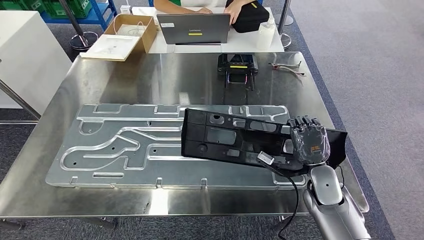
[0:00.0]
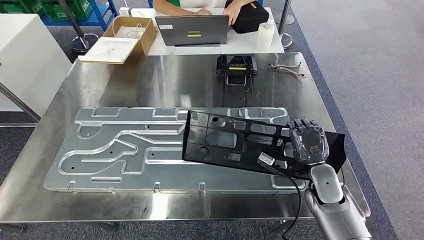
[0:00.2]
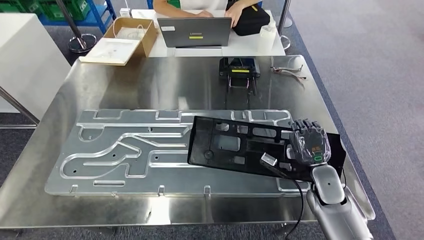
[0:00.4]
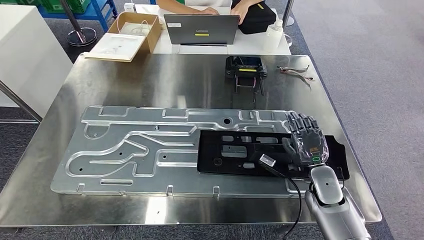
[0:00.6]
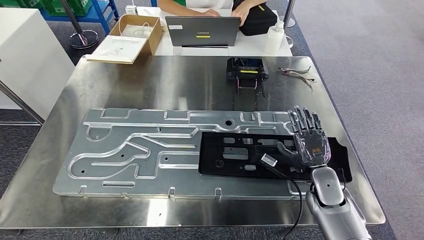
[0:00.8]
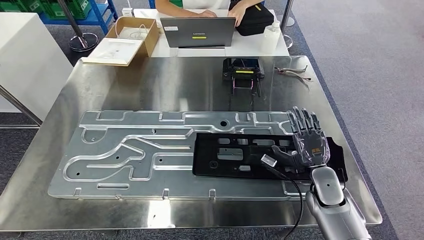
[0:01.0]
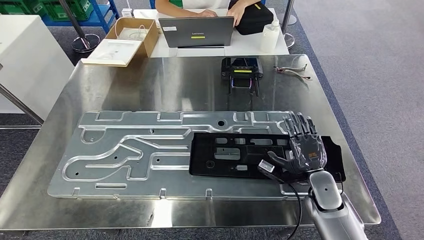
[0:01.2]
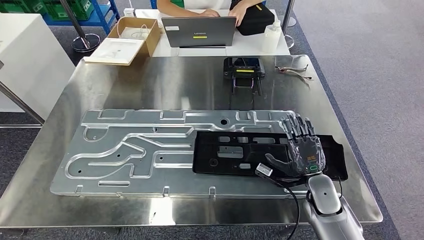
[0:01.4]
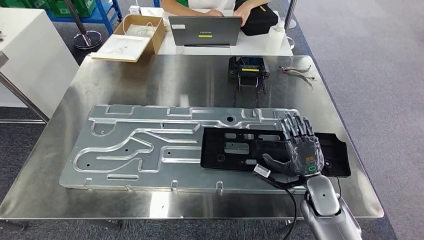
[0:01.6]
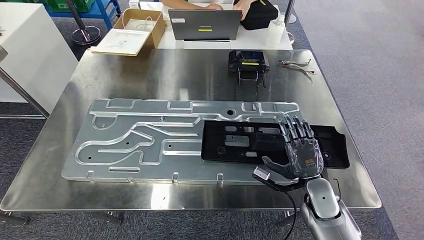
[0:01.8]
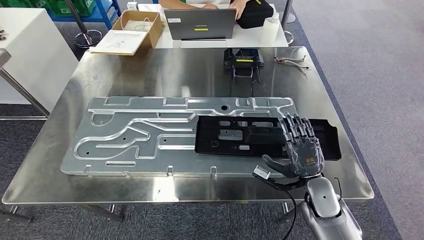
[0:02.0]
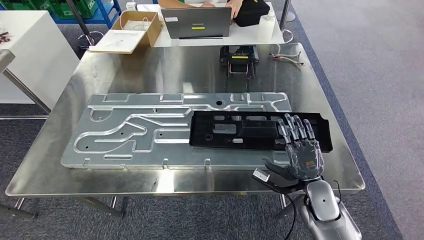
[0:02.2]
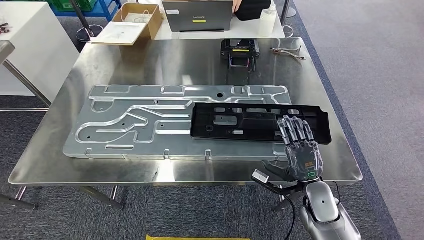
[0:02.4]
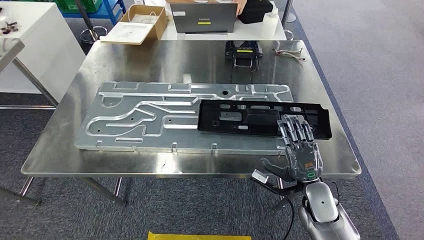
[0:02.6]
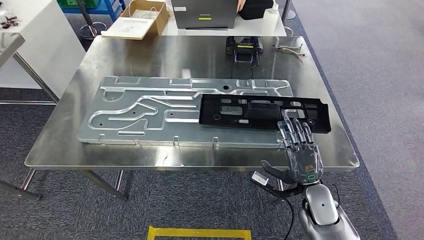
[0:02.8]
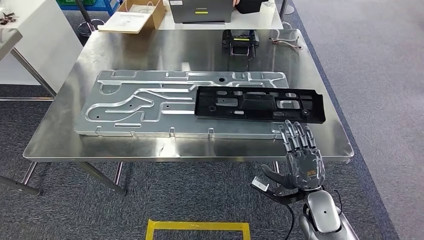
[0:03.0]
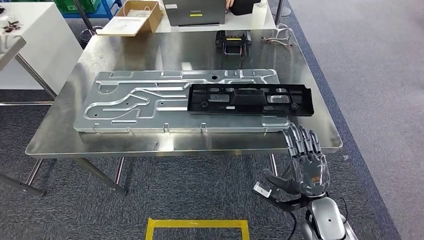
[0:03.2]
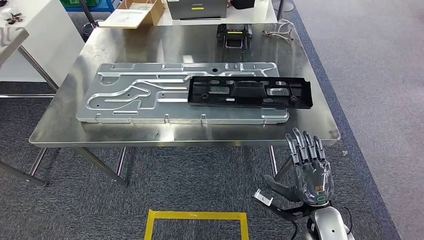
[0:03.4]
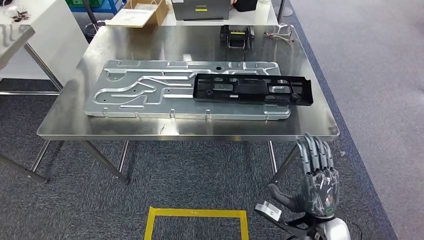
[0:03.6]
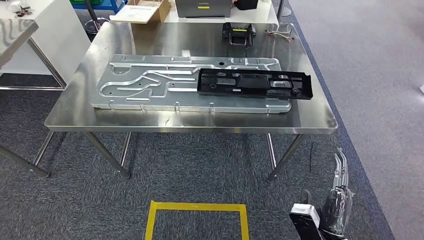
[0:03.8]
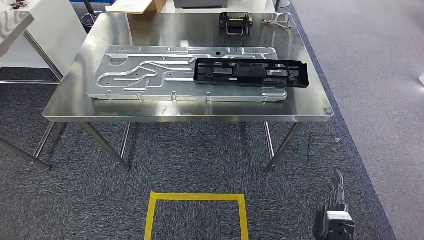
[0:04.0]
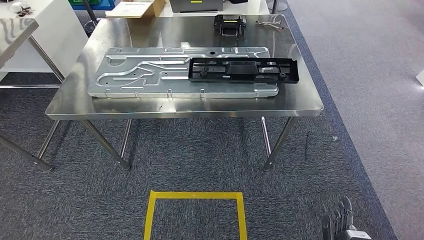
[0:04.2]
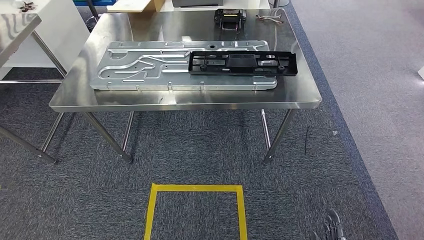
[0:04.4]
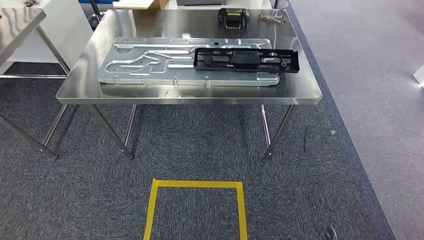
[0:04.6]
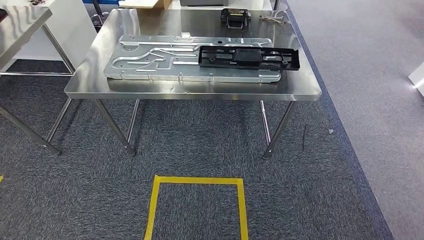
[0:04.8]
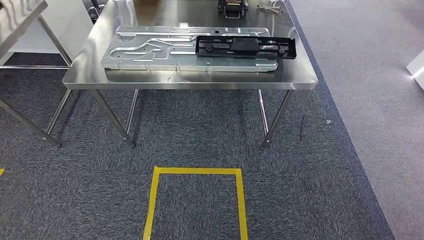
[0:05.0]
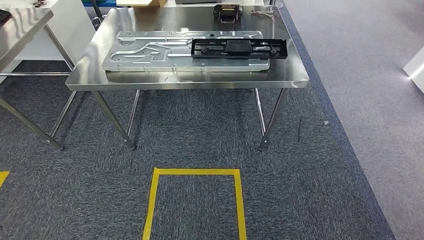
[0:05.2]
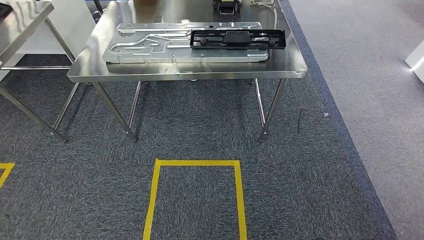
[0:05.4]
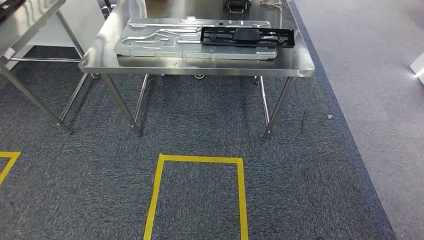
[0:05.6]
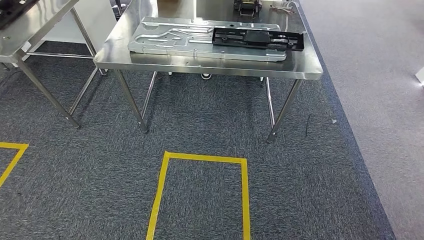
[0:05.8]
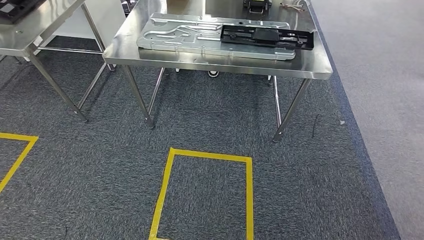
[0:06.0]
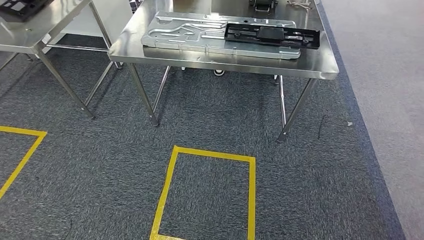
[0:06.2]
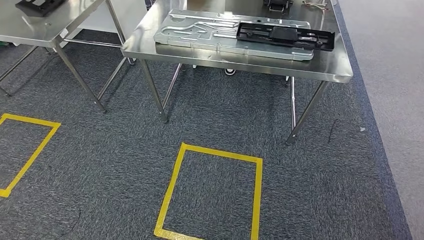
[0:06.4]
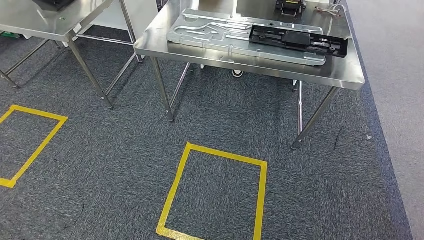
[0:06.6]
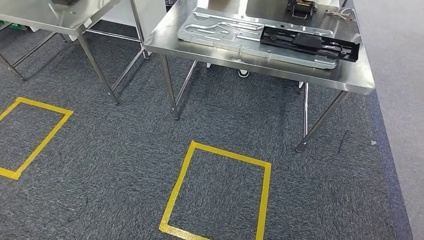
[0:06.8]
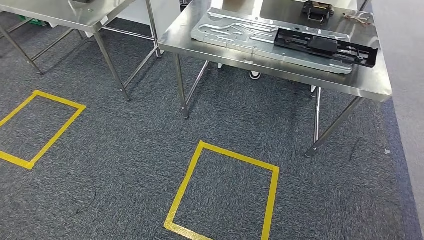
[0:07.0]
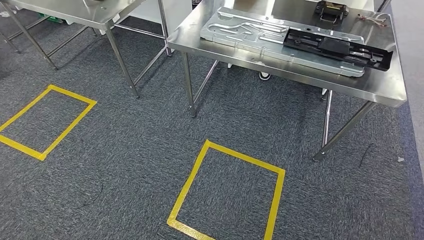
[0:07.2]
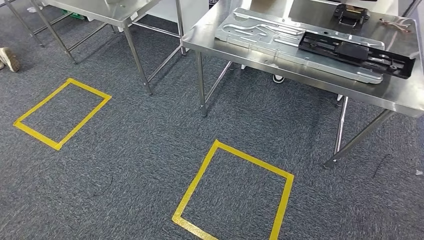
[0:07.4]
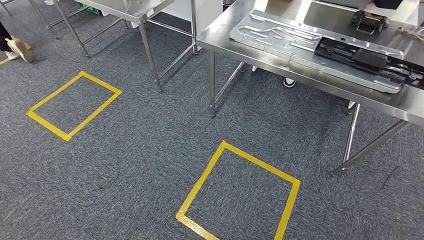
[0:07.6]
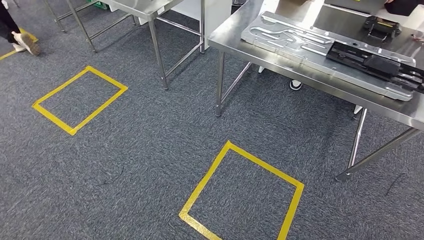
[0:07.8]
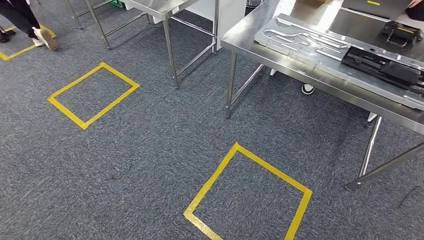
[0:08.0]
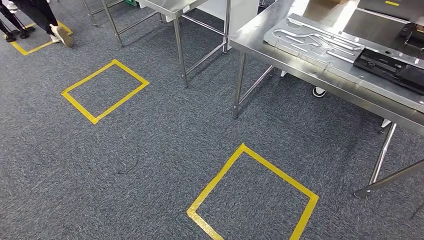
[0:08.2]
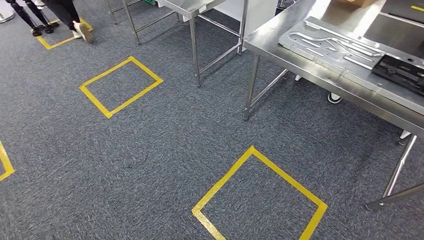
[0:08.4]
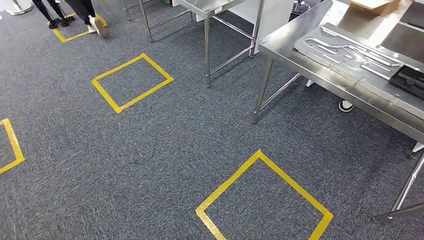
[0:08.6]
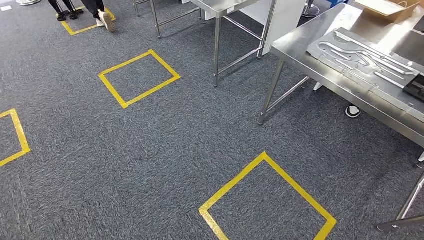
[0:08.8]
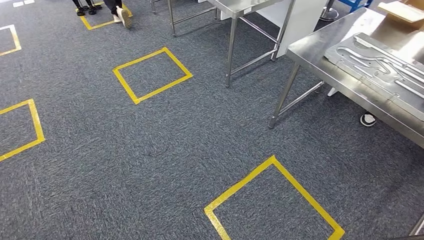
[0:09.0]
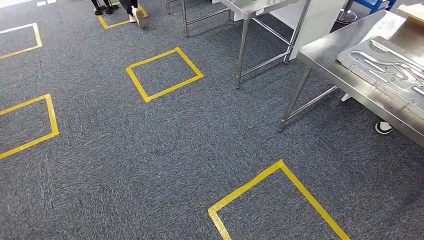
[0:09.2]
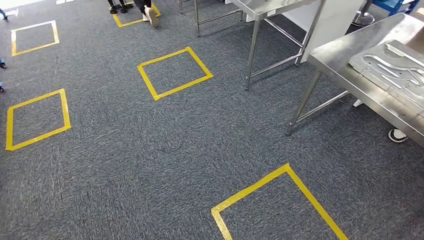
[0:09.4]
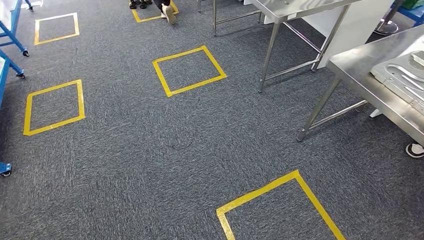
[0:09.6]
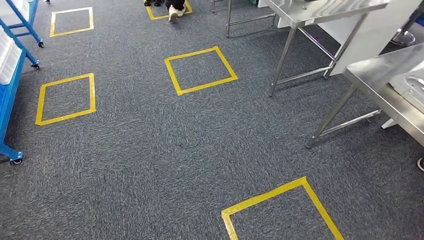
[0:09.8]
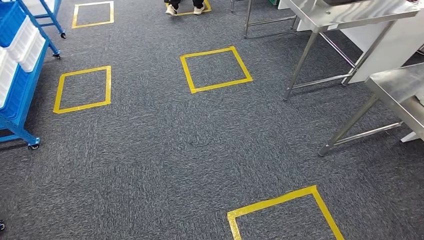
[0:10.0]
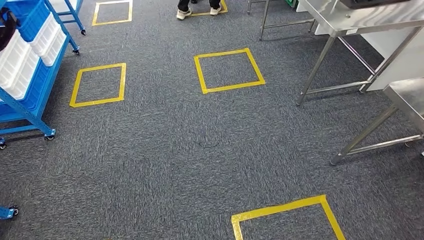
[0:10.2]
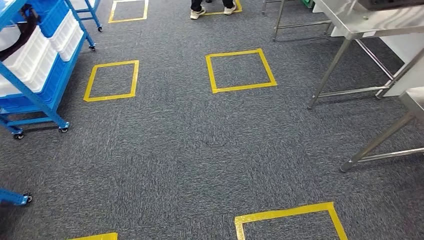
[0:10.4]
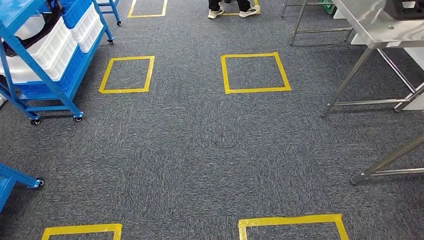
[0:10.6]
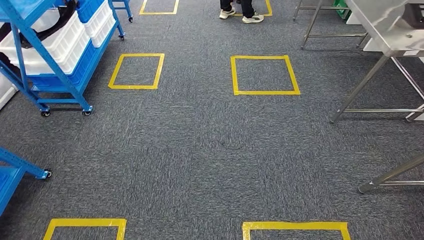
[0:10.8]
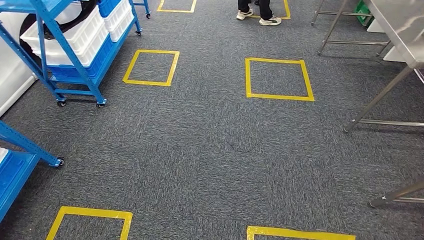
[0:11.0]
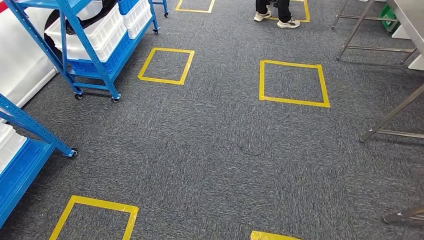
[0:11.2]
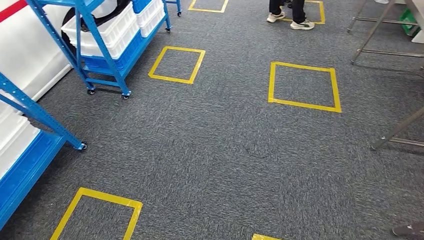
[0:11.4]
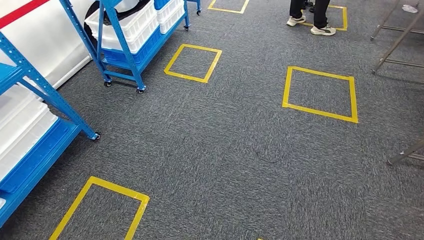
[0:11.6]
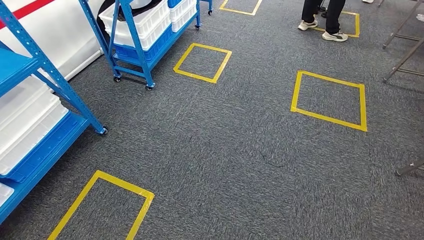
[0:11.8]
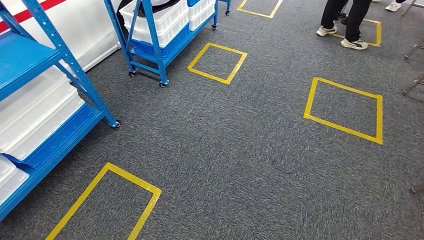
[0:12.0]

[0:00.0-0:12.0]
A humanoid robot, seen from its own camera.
Step, 0:00.0 to 0:04.8: Insert the large material into the corresponding slot on the workbench.

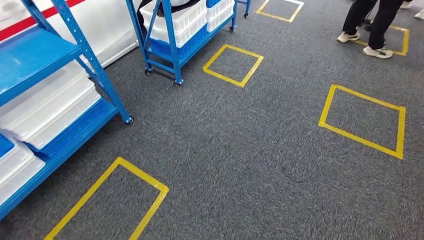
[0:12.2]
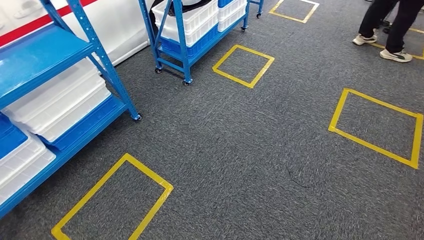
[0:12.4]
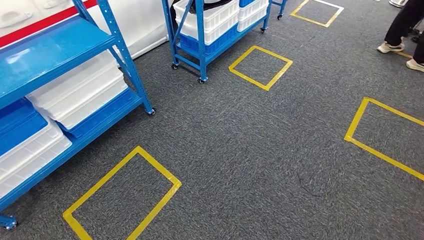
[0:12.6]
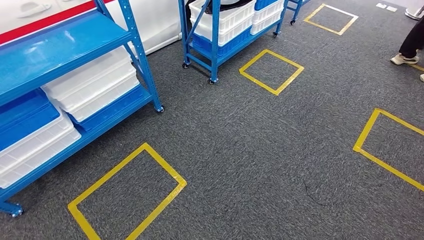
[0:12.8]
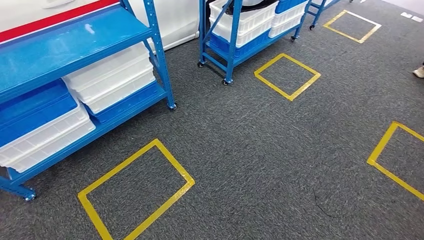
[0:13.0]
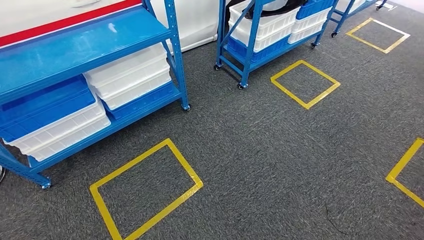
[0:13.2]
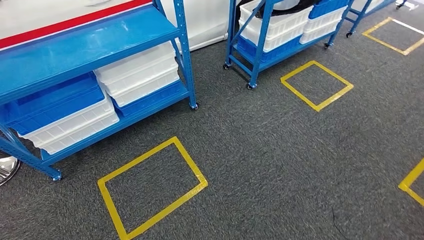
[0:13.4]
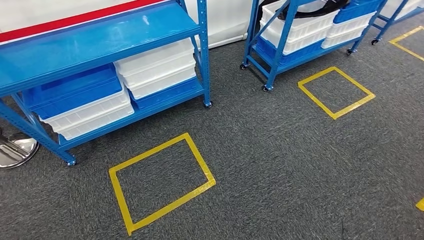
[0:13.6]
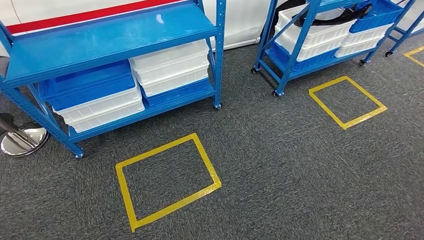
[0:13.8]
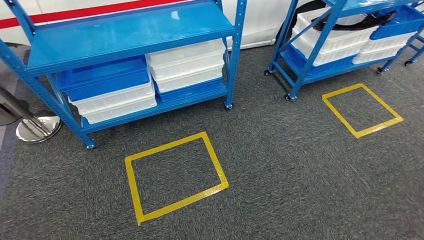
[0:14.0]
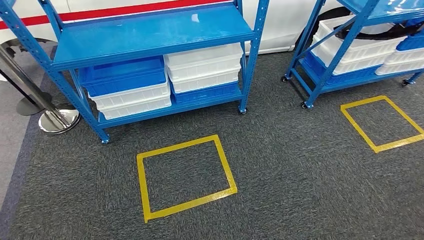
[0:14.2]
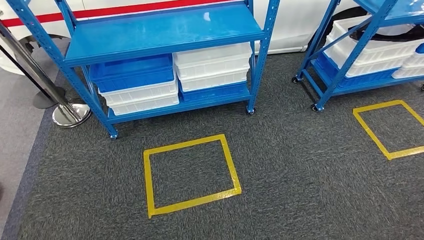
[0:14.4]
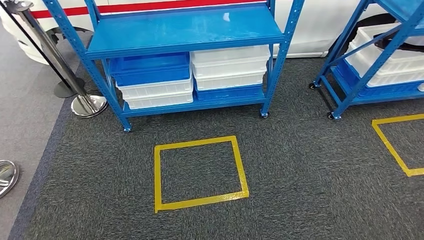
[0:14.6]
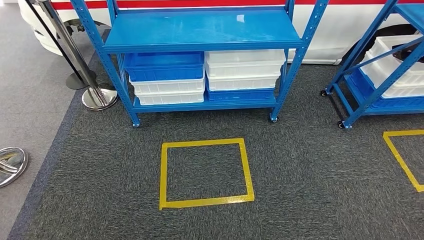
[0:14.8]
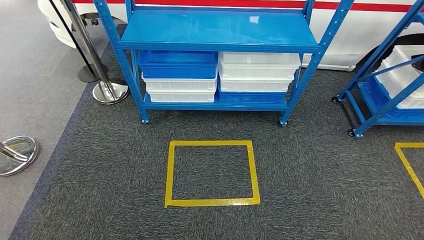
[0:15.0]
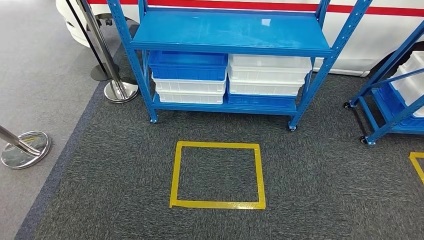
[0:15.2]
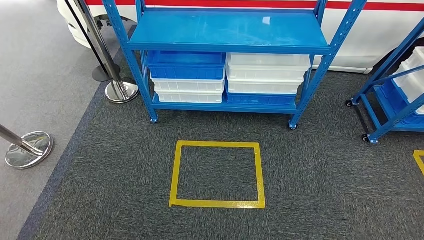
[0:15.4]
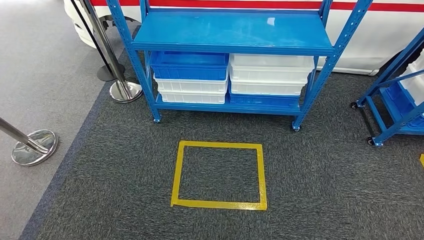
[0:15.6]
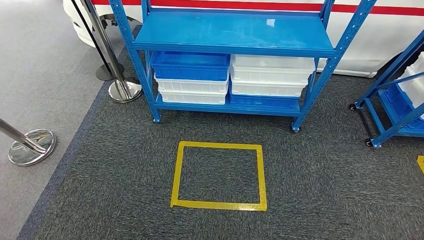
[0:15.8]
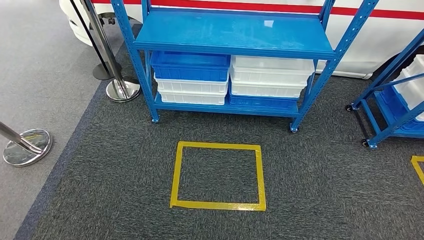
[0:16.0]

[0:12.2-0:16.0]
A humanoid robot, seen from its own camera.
Step, 0:12.2 to 0:16.0: Move to the initial position of the shelf.
